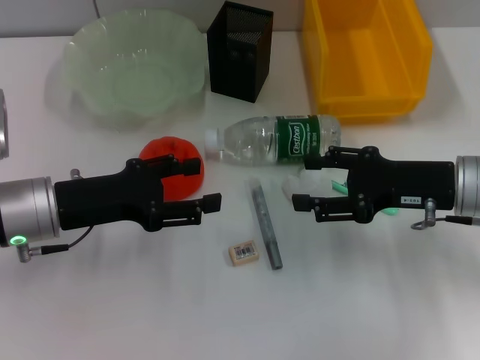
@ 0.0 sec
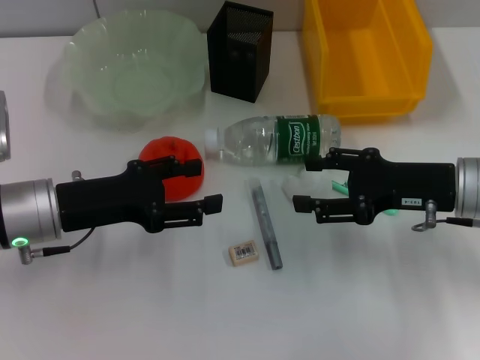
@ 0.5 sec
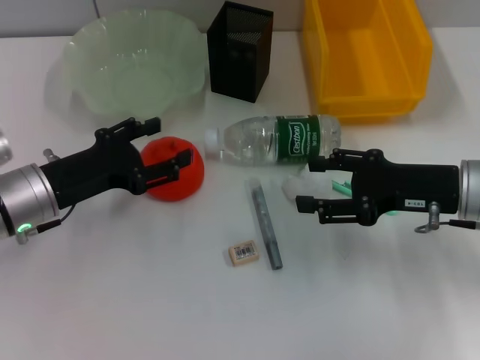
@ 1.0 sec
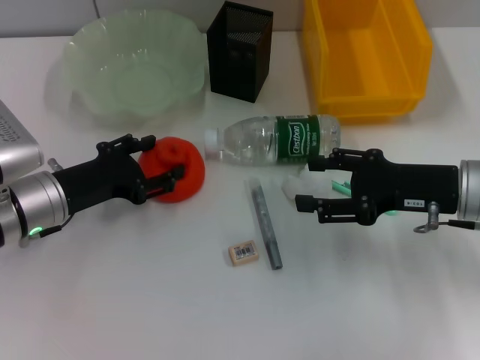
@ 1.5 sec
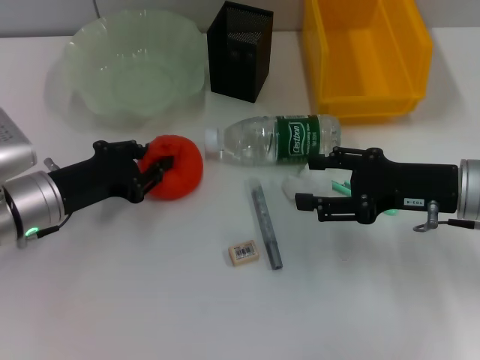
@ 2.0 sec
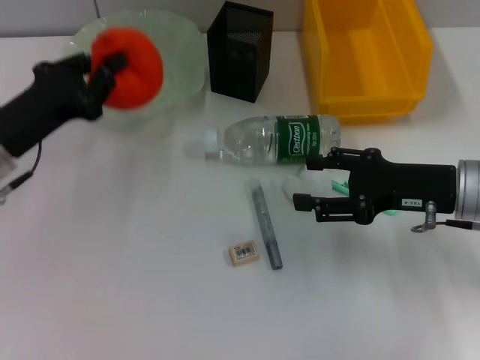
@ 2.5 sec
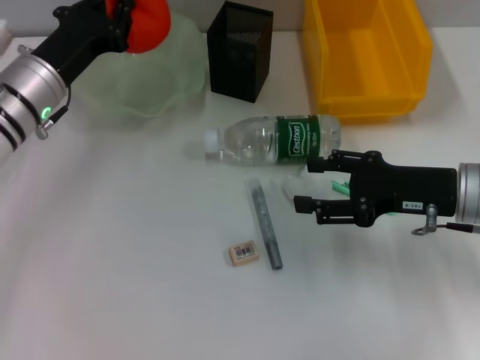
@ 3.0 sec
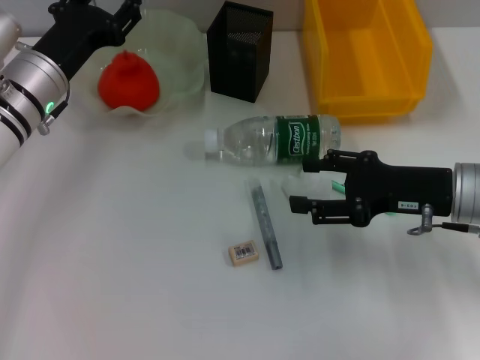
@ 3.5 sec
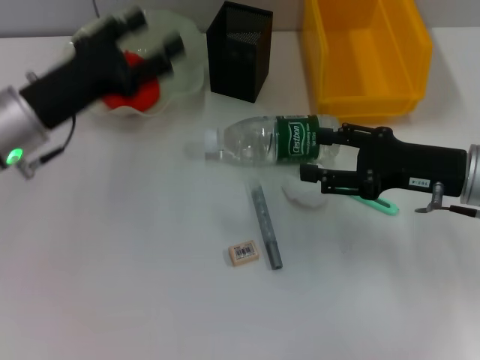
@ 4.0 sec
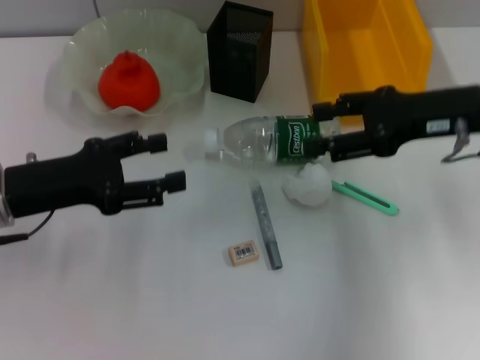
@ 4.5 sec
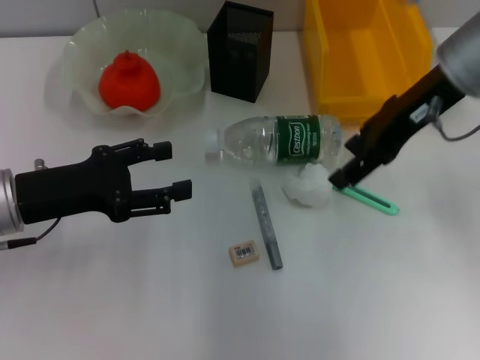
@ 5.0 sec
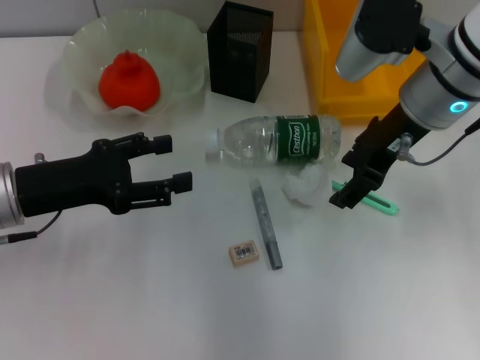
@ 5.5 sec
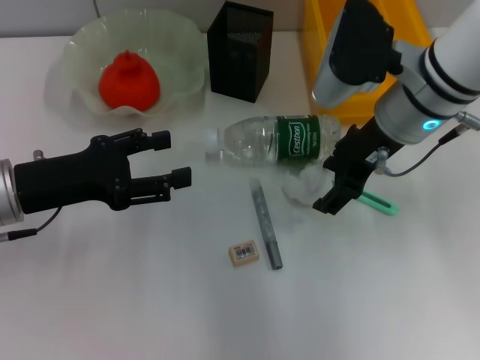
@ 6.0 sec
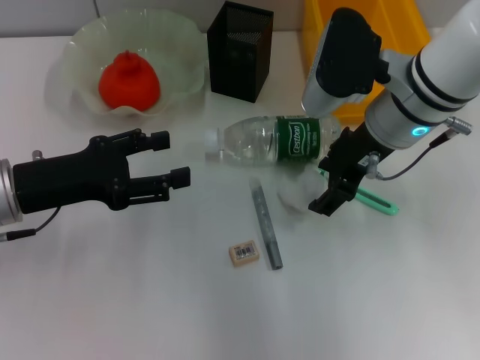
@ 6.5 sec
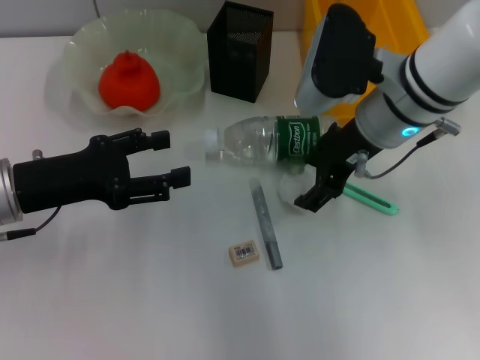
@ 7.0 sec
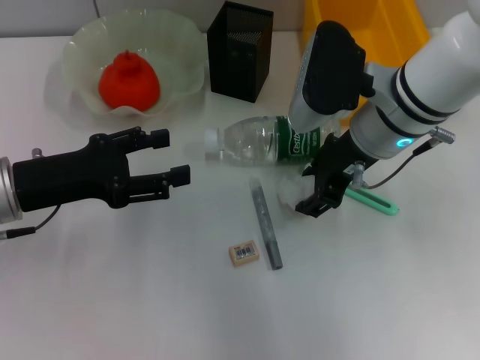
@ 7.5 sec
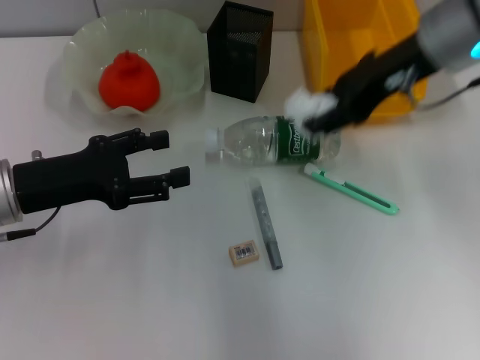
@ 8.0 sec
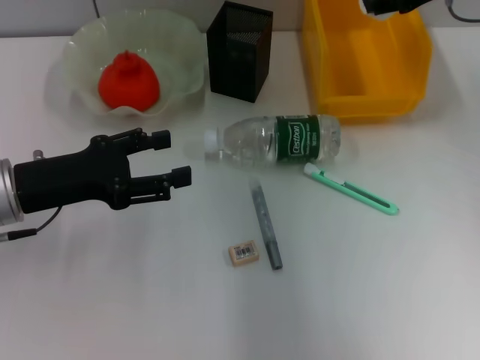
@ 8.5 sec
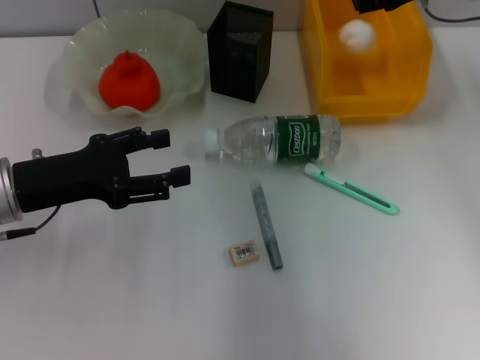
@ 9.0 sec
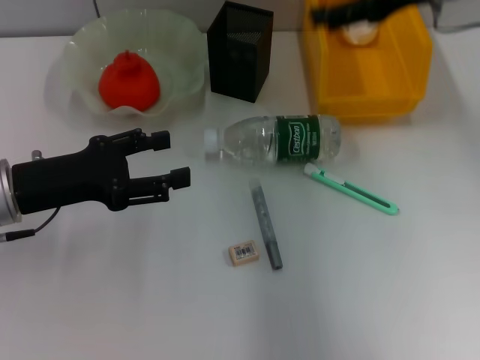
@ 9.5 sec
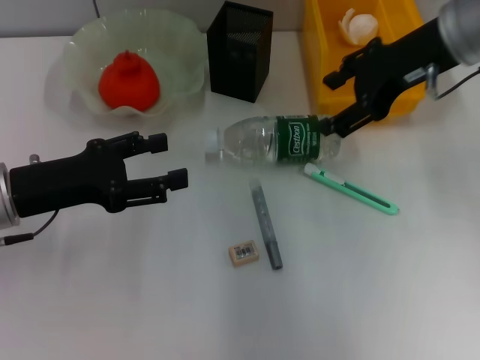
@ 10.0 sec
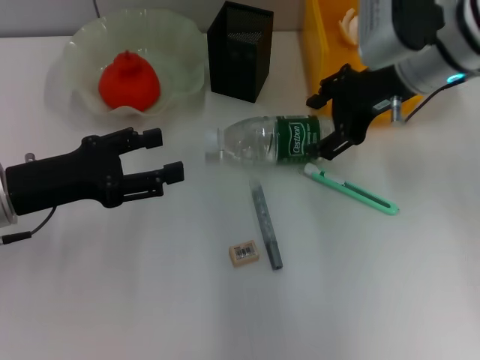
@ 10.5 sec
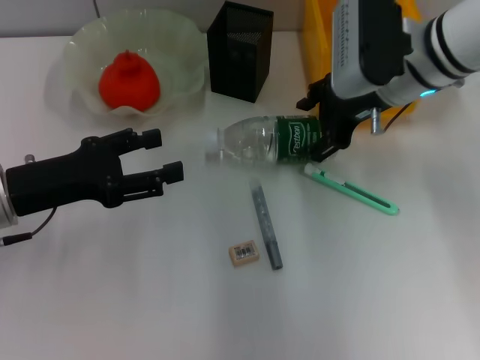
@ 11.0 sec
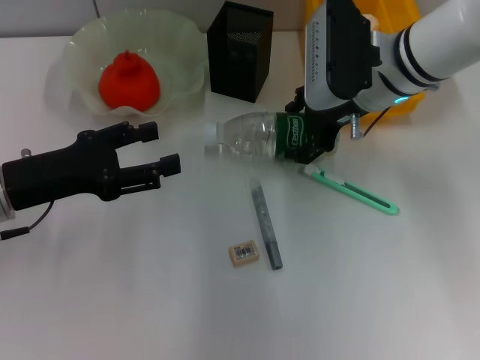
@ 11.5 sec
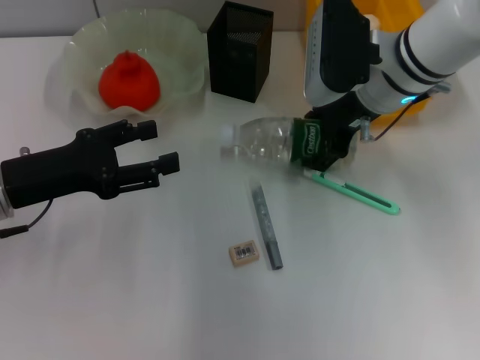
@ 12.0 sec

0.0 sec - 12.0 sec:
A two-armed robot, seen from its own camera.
Step, 0.0 sec - 2.0 sec: Grab the orange with the left hand.
Step, 2.5 sec - 3.0 sec: Place the orange into the fruit bowl with the left hand.
Step, 3.5 sec - 7.0 sec: Grab the paper ball with the right hand.
Step, 7.5 sec - 9.0 sec: Place the paper ball into the trash can with the right hand.
0.0 sec - 2.0 sec: The left gripper closes its fingers.
2.0 sec - 4.0 sec: The left gripper goes approximately 5 cm upward, goes forward and returns, roughly 10 cm each way, and opens its fingers.
4.0 sec - 6.0 sec: The right gripper travels to the left, upward and forward by roughly 15 cm.
6.0 sec - 8.0 sec: The right gripper travels upward by some 5 cm.
8.0 sec - 10.0 sec: The right gripper travels forward and back again, roughly 10 cm each way.
10.0 sec - 12.0 sec: The right gripper goes about 10 cm downward and to the left.

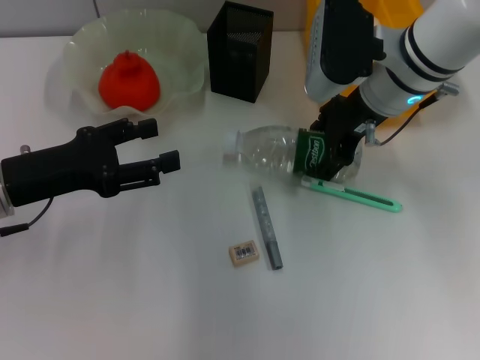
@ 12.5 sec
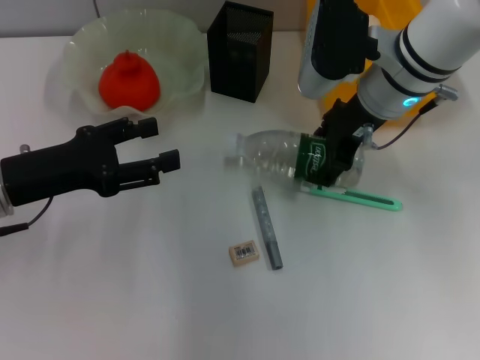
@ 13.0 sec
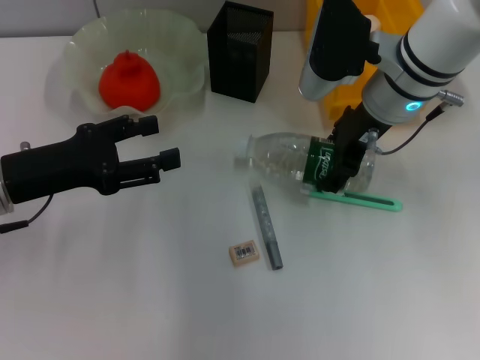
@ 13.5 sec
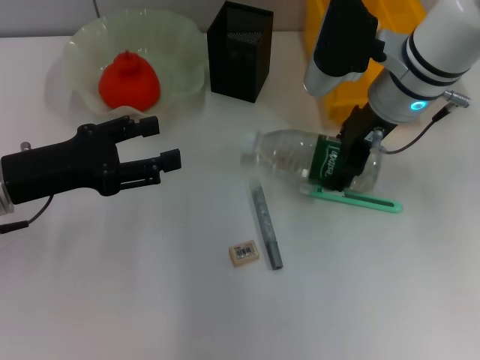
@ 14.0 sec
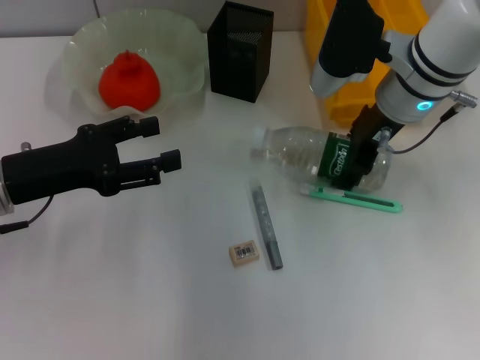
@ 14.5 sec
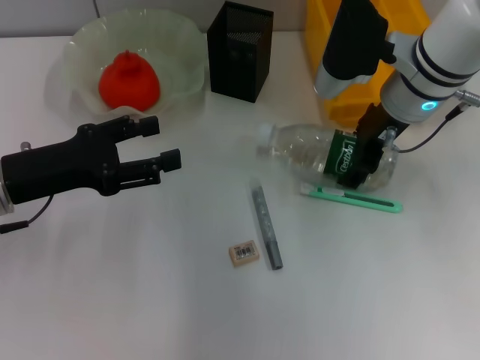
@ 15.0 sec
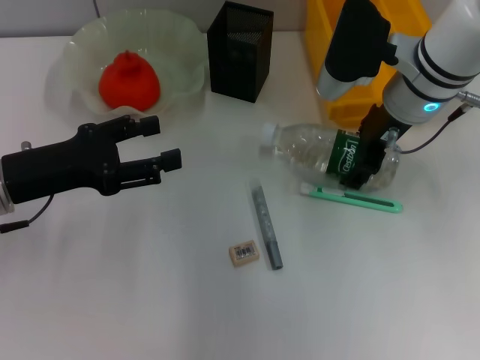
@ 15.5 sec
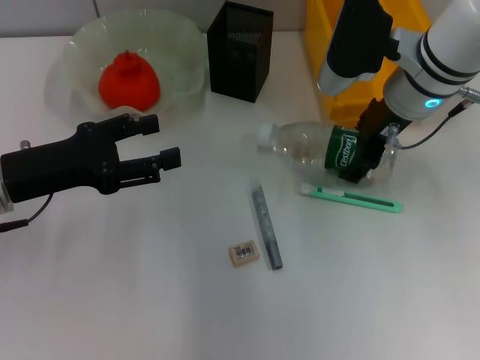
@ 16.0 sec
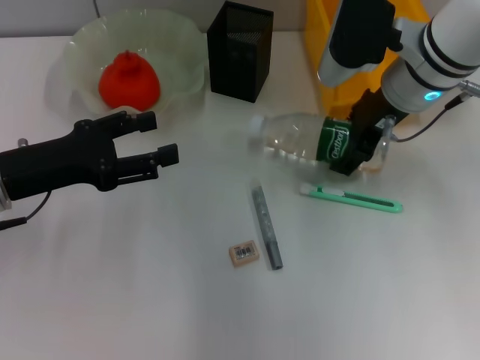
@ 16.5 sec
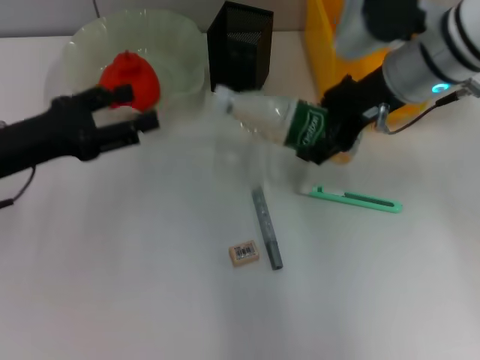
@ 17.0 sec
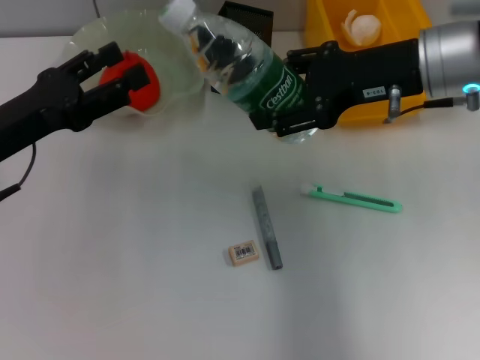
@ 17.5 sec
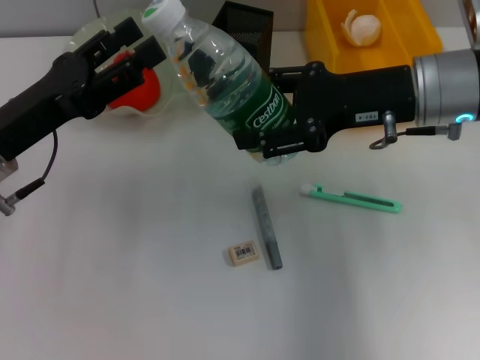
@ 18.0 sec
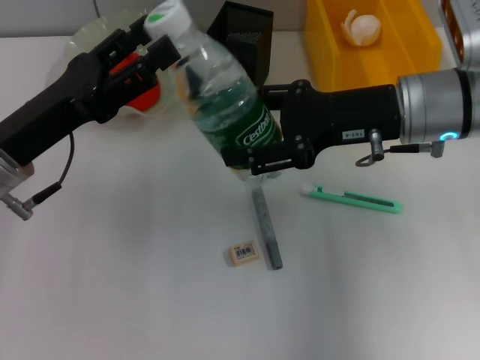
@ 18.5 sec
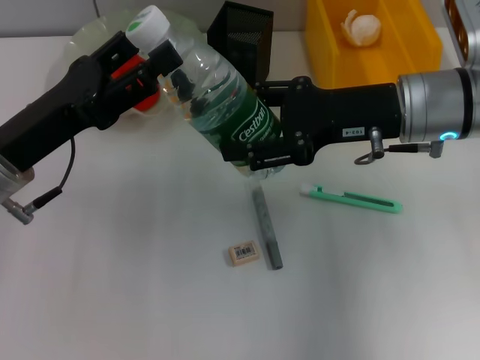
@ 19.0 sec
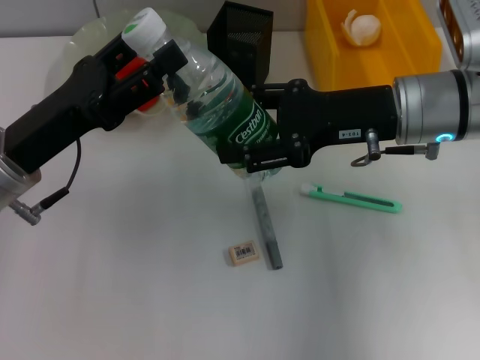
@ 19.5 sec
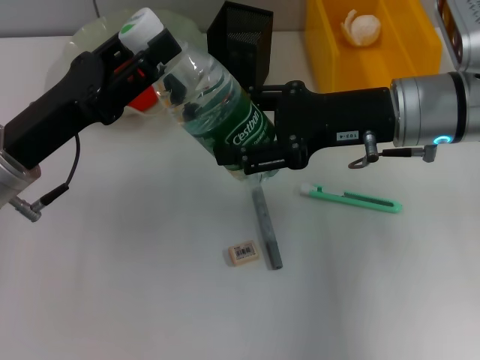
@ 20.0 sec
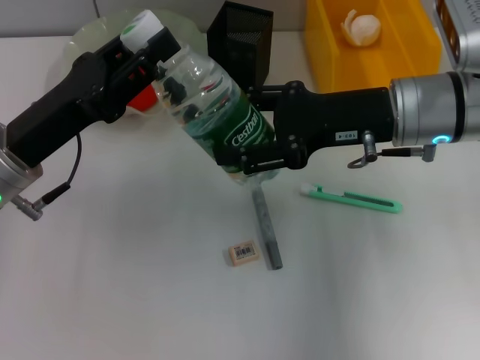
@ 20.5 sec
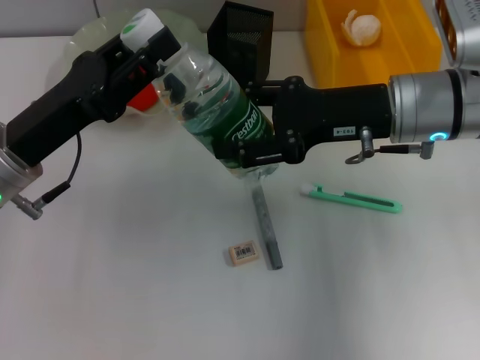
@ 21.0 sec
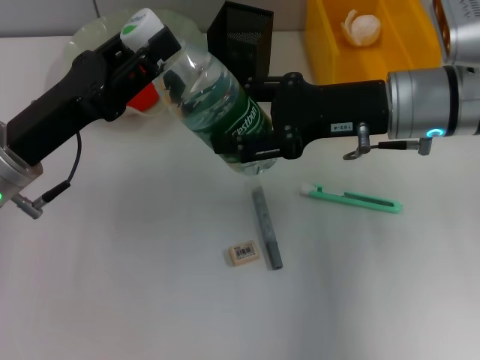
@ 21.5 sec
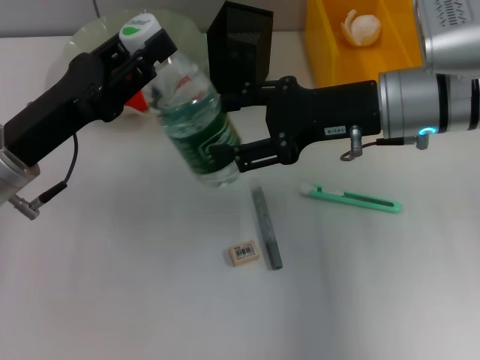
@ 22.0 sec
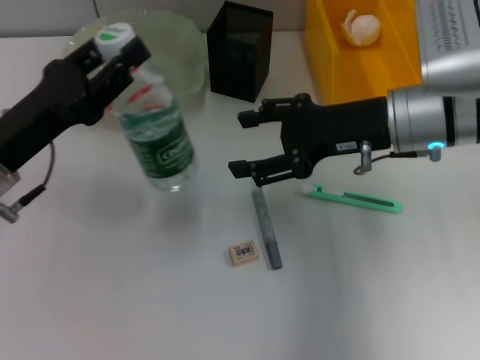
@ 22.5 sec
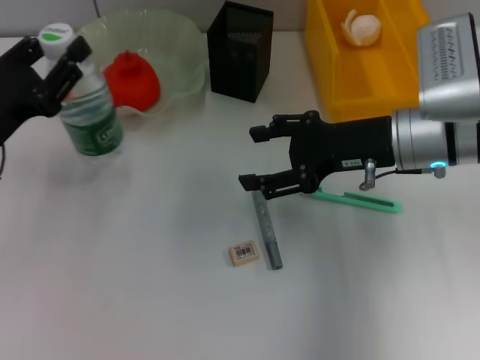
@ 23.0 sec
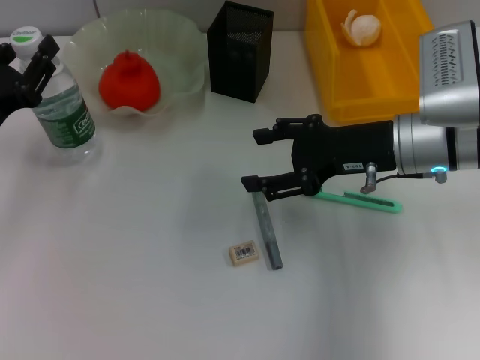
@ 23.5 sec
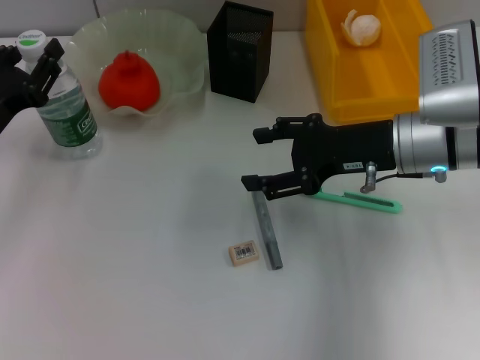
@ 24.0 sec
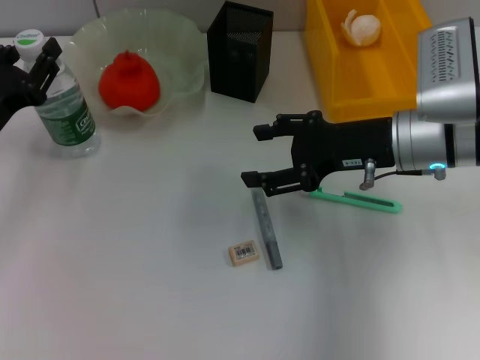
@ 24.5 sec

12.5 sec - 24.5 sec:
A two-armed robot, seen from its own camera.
Step, 12.5 sec - 16.0 sec: Grab the water bottle with the right hand.
Step, 16.5 sec - 22.0 sec: Pass the water bottle from the right hand to the left hand.
12.5 sec - 16.5 sec: The grippers stay close to where they were, moving slightly.
16.5 sec - 18.5 sec: The right gripper travels backward by some 5 cm.
18.5 sec - 20.5 sec: The left gripper closes up.
20.5 sec - 22.5 sec: The grippers make only small movements.
22.5 sec - 24.5 sec: The left gripper moves roughly 5 cm.

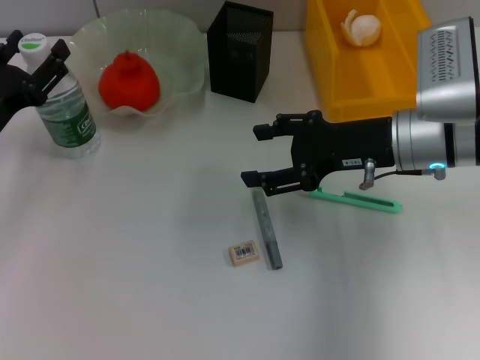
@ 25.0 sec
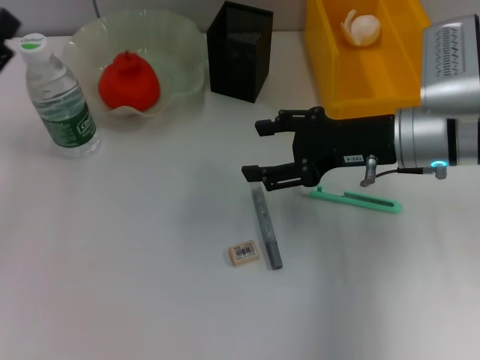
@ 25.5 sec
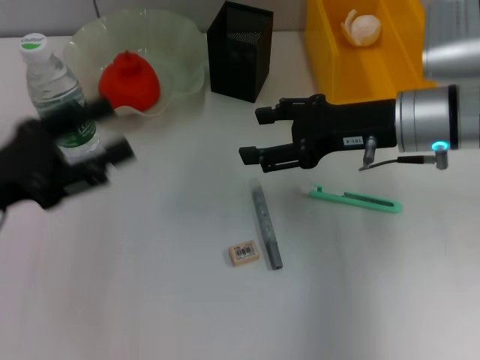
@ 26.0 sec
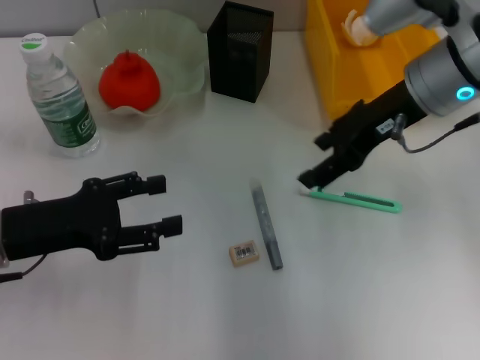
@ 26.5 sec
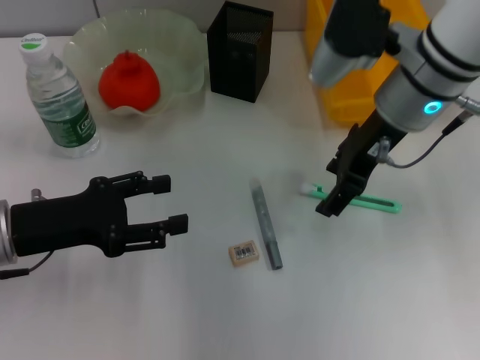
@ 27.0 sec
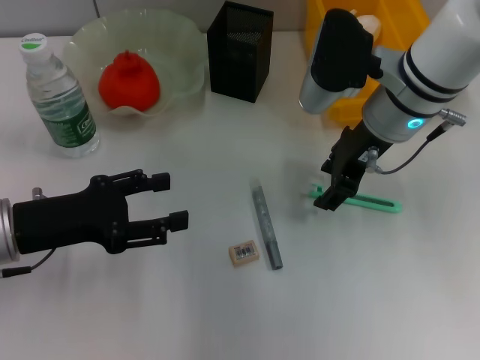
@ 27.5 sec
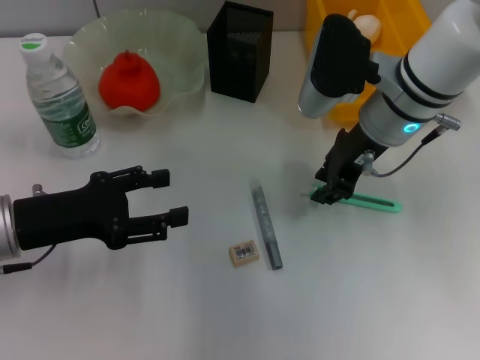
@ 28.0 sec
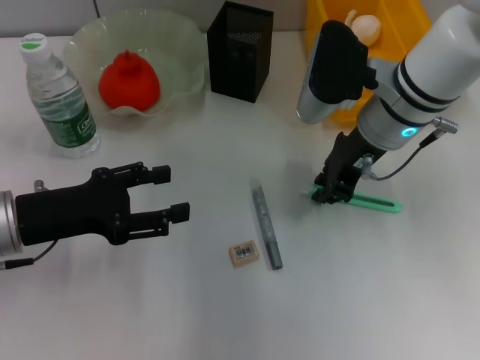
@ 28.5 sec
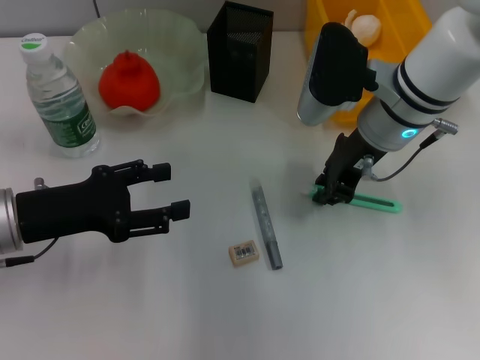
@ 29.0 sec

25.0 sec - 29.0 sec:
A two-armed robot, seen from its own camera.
25.0 sec - 27.0 sec: The left gripper moves approximately 5 cm. The right gripper is displaced upward by approximately 5 cm.
27.0 sec - 29.0 sec: The right gripper closes its fingers.